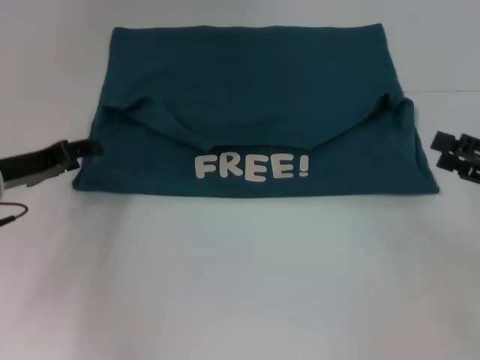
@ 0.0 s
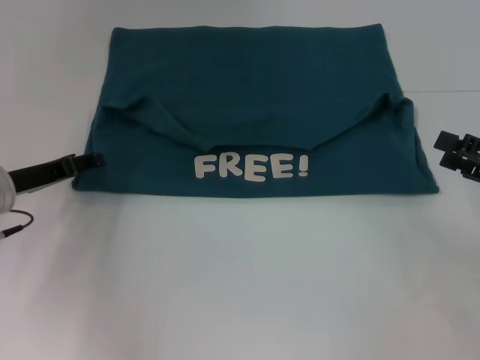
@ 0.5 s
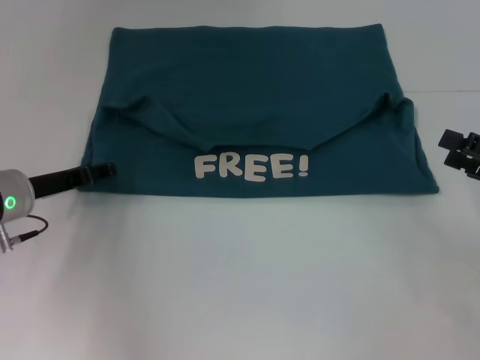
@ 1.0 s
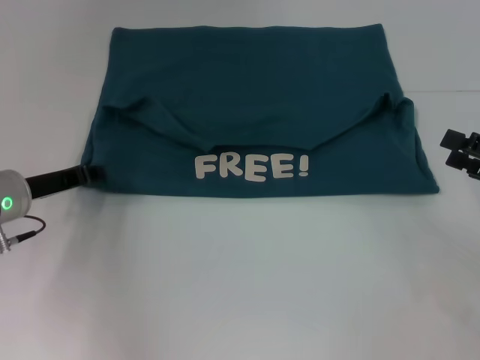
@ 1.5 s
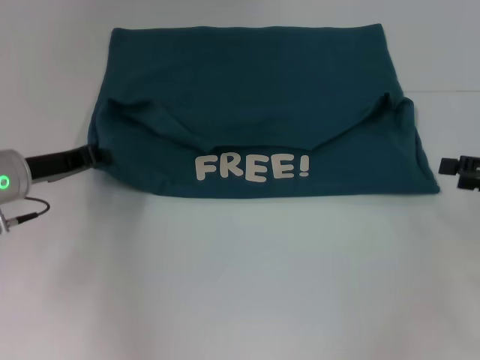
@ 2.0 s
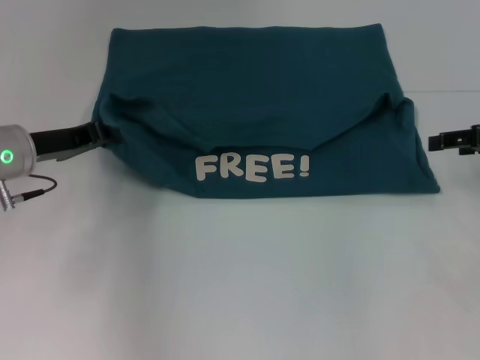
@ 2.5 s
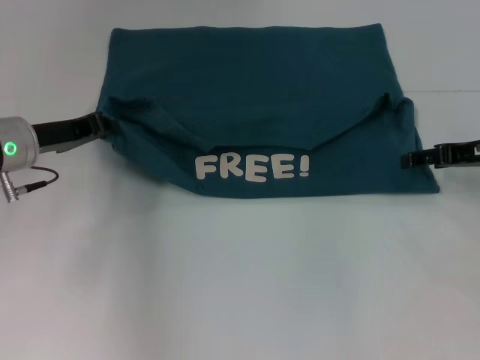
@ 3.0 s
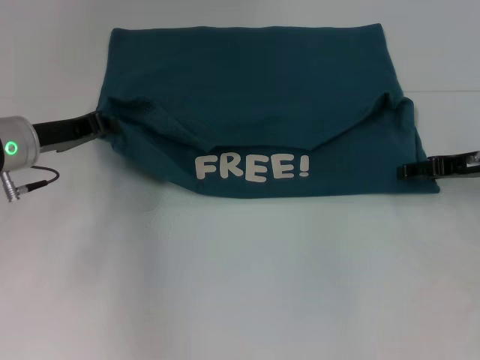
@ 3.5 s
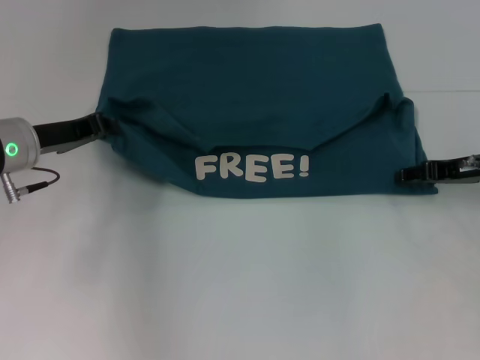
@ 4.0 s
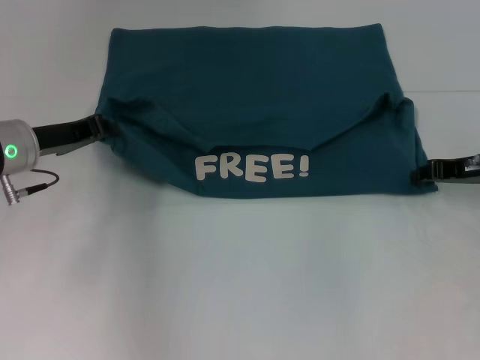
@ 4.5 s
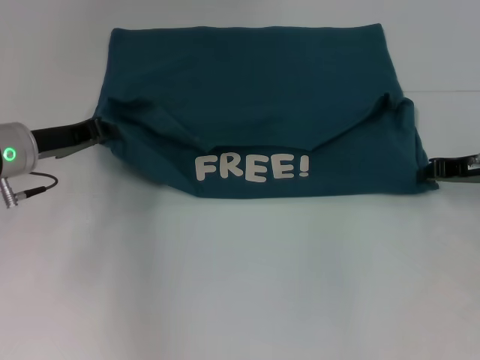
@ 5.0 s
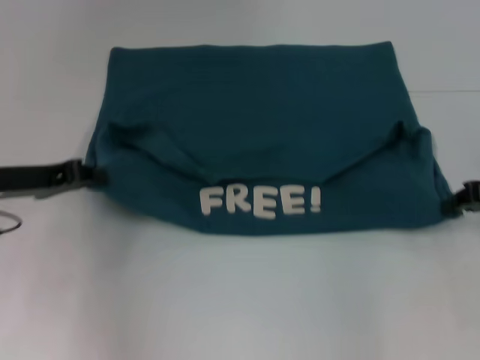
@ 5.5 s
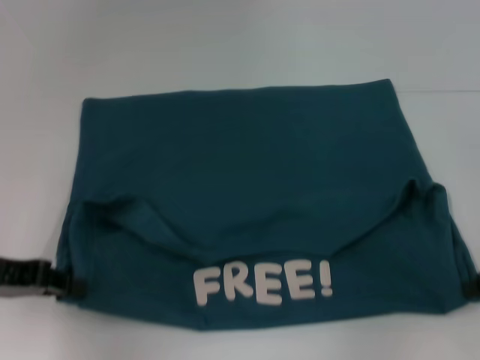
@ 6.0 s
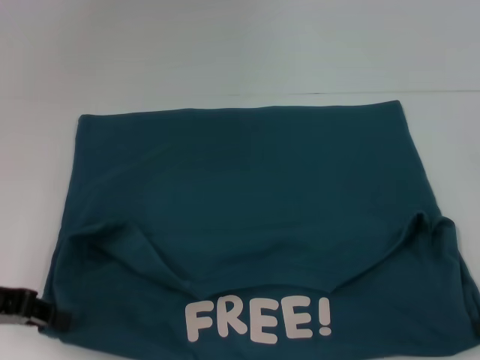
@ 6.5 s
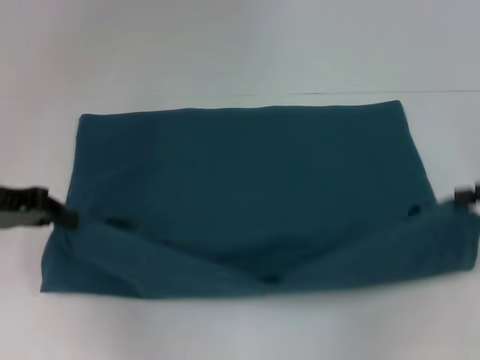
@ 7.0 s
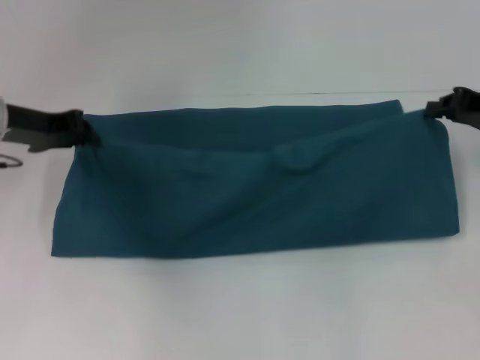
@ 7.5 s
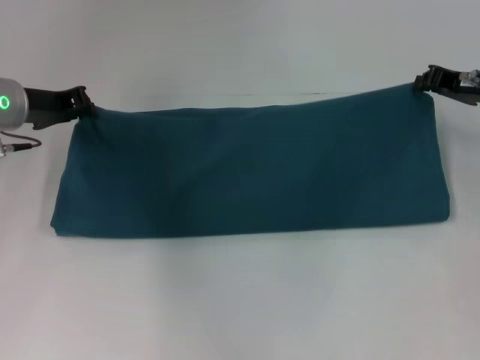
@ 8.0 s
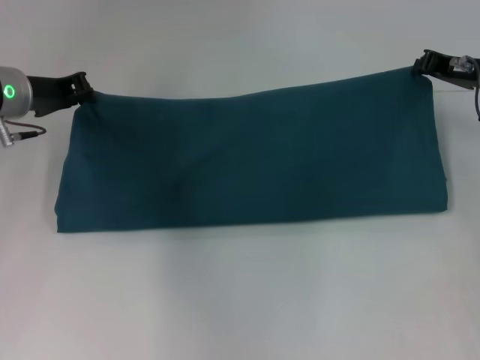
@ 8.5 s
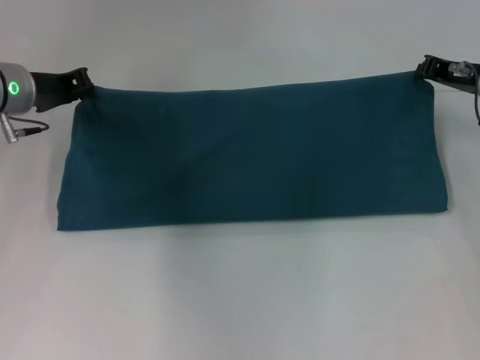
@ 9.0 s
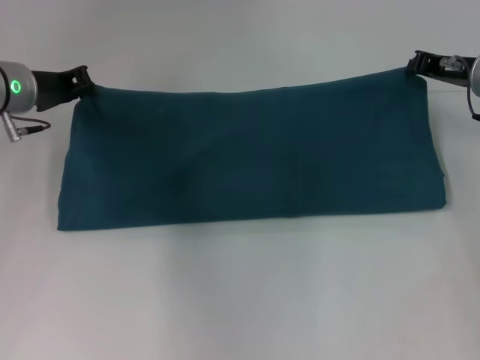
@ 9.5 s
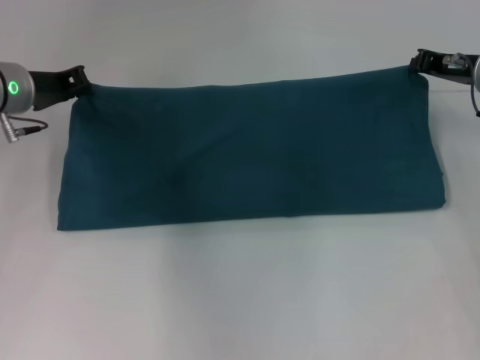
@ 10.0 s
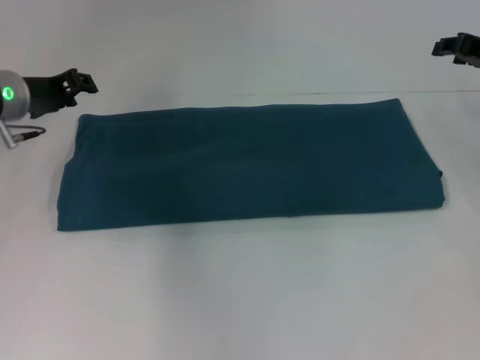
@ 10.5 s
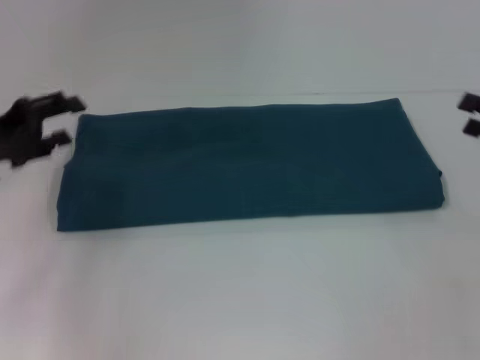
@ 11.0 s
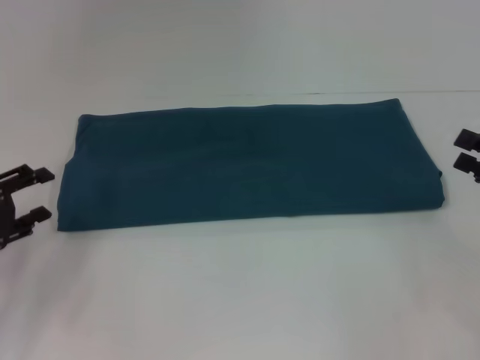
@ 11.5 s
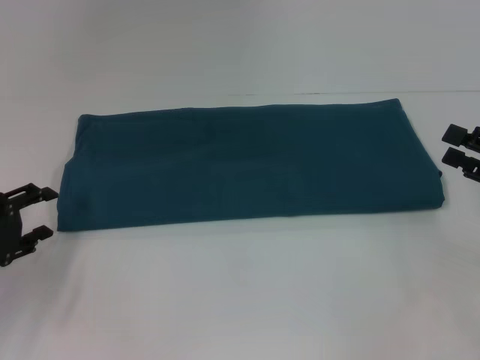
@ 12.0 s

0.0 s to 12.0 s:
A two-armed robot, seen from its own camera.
Step, 0.0 to 6.0 s: Pull the clothes with your left hand.
Step, 0.0 to 6.0 s: Pull the clothes with your right hand.
Step, 6.5 to 10.0 s: Fold the clothes to the right.
0.0 to 2.0 s: The left gripper closes.
2.0 to 4.0 s: The right gripper travels forward and to the left by some 10 cm.
4.0 to 6.0 s: The left gripper heads backward and to the left, covering about 10 cm. Meanwhile the right gripper travels backward and to the right by some 10 cm, and closes its fingers.
6.0 to 8.0 s: The left gripper heads forward, covering about 15 cm, while the right gripper shifts about 15 cm forward and to the left.
8.0 to 10.0 s: There are only small adjustments of the grippers.
10.0 to 12.0 s: The left gripper travels backward, downward and to the left by roughly 20 cm, and opens, while the right gripper travels backward and to the right by approximately 20 cm, and opens up.

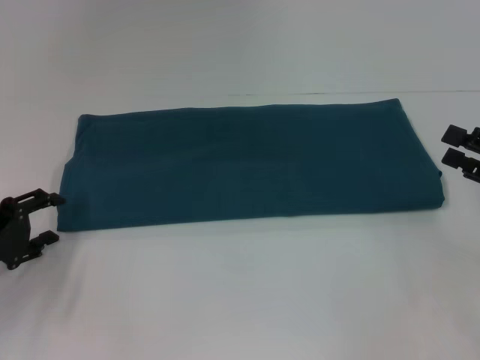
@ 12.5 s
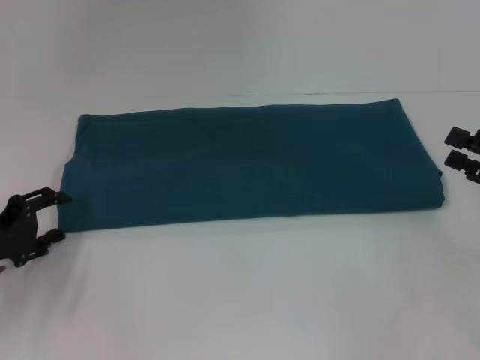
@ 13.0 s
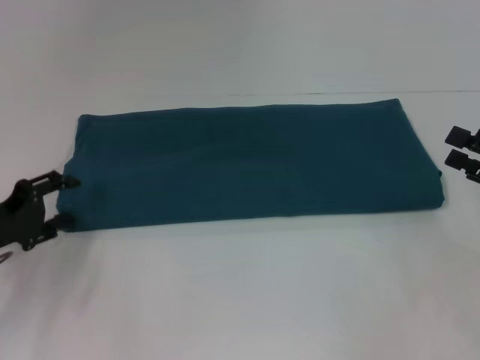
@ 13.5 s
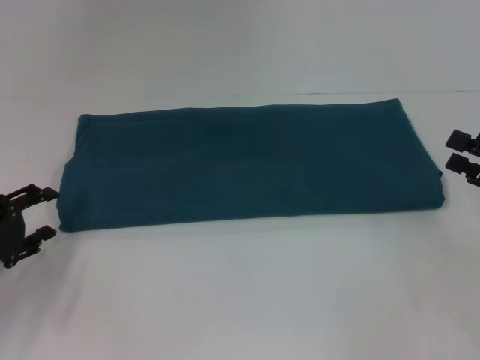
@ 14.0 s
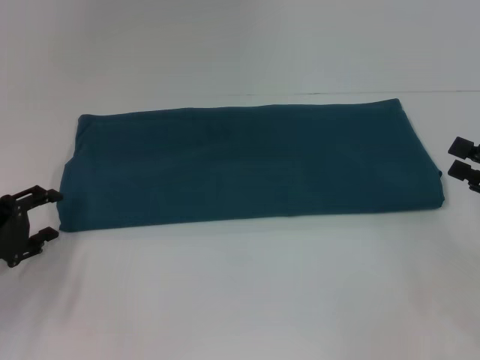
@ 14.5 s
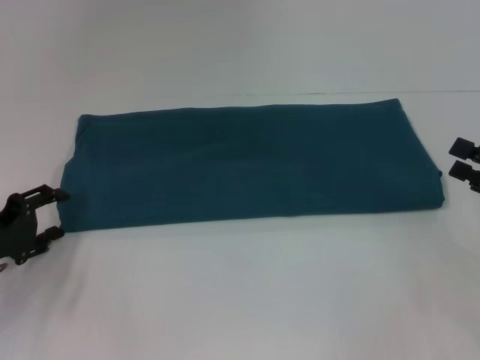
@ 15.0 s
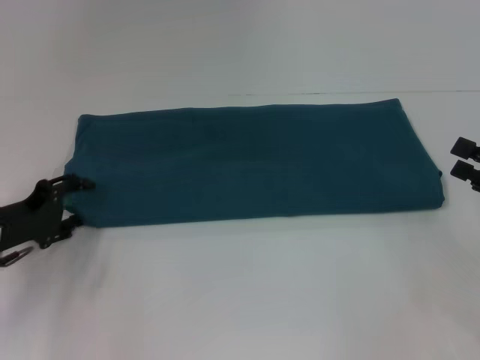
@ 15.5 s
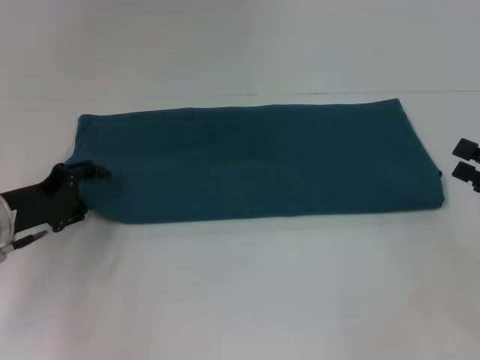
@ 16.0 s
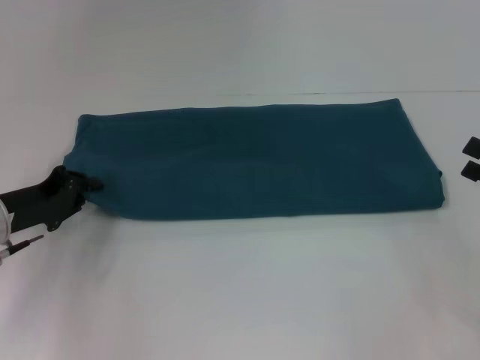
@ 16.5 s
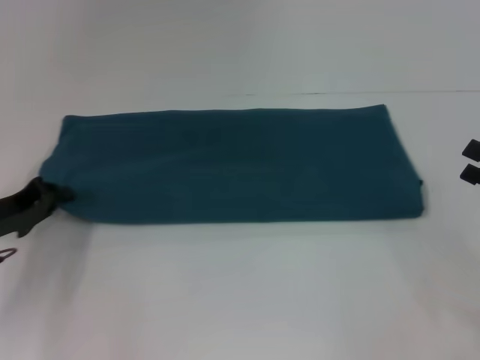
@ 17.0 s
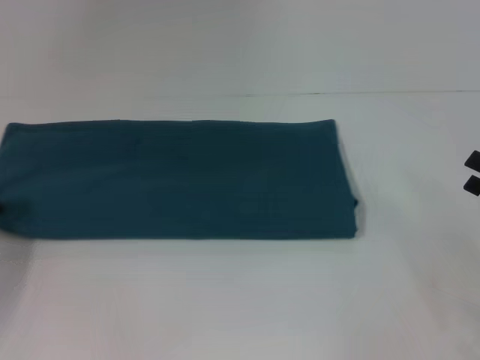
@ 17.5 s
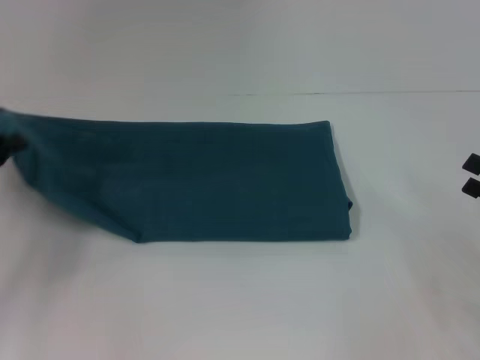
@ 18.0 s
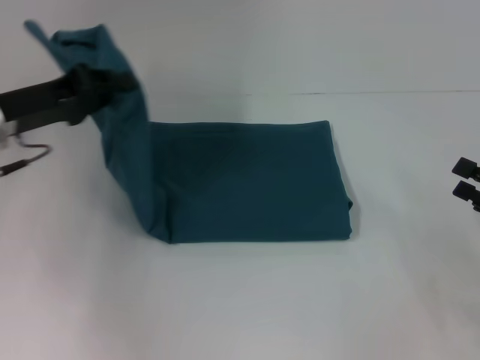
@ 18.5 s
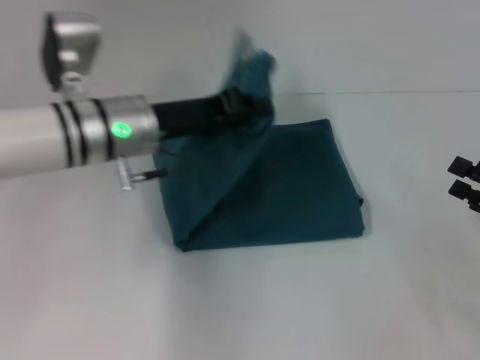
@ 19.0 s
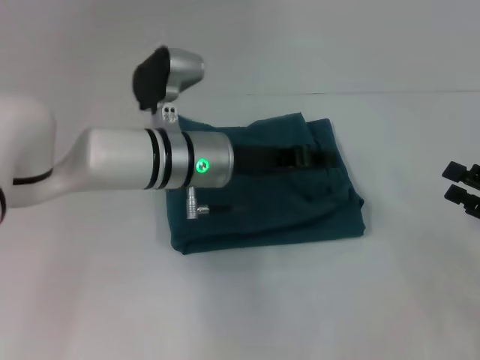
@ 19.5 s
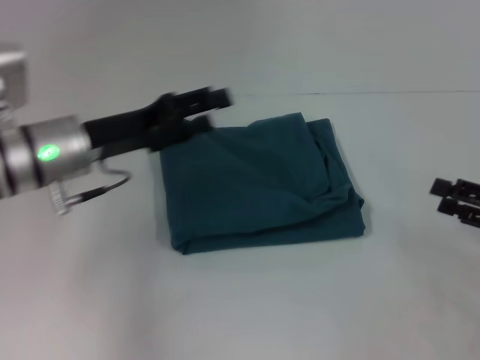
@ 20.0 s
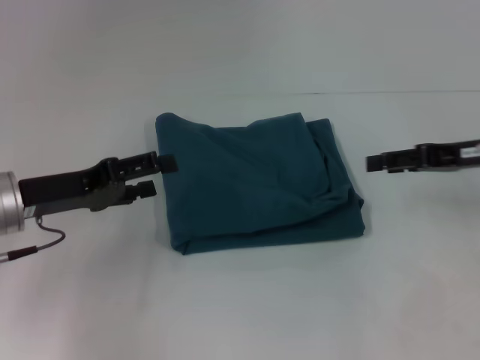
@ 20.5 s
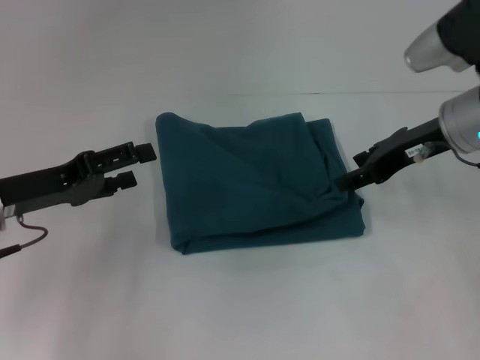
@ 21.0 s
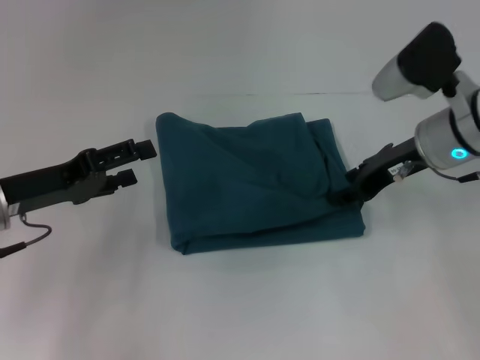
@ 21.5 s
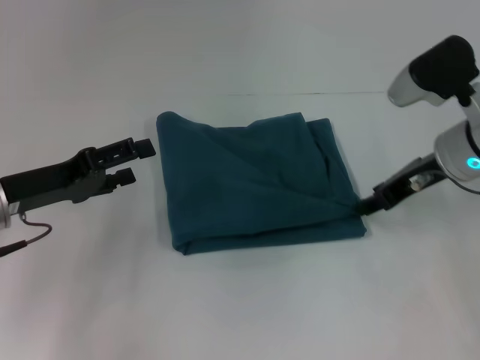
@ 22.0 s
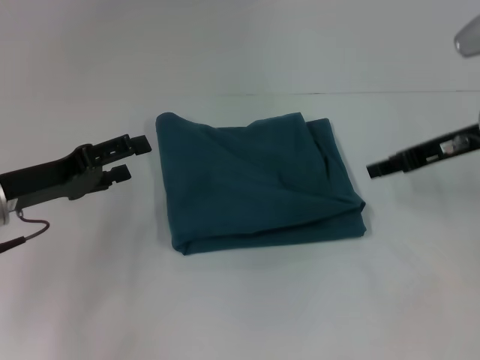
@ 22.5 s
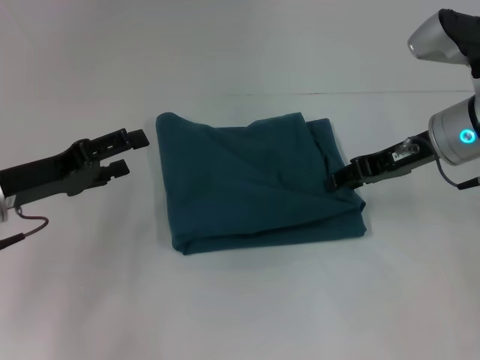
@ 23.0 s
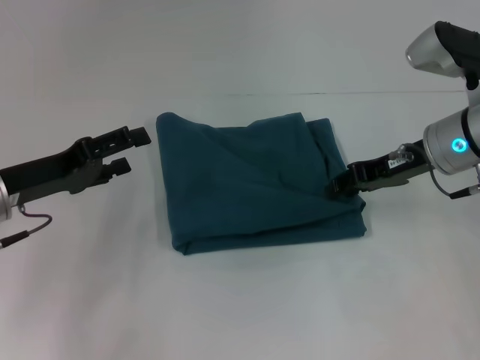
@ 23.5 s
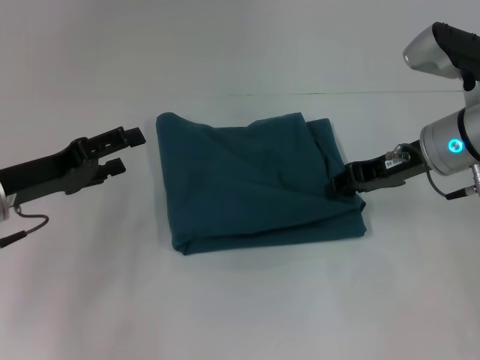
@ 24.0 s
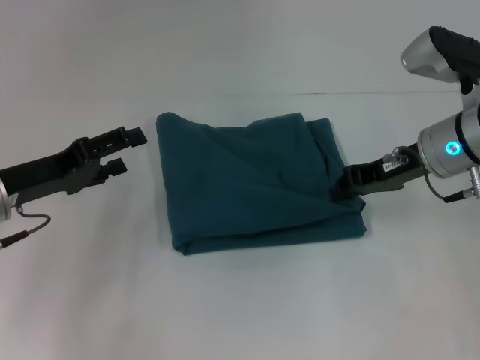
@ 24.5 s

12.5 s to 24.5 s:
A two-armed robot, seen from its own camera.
Step, 12.5 to 19.0 s: Fold the clothes to the left.
12.5 to 14.5 s: There are only small adjustments of the grippers.
14.5 to 16.5 s: The left gripper heads forward, covering about 5 cm, and closes up.
16.5 to 18.5 s: The left gripper moves upward, approximately 10 cm.
18.5 to 20.5 s: The left gripper reaches roughly 20 cm to the right, then returns, and opens up. Meanwhile the right gripper moves forward, to the left and upward, approximately 15 cm.
22.5 to 24.5 s: The right gripper shifts by roughly 5 cm.

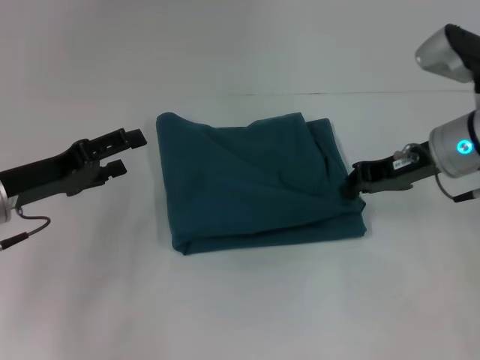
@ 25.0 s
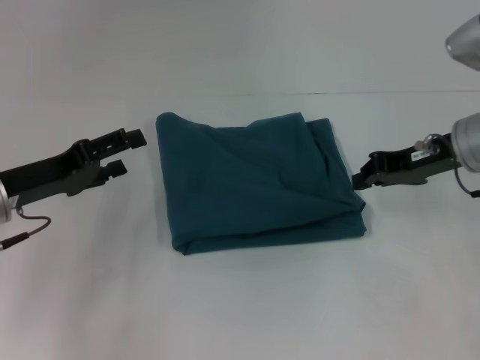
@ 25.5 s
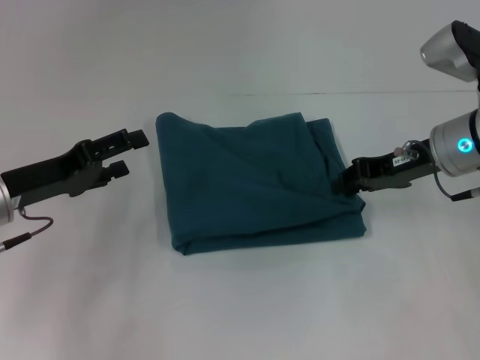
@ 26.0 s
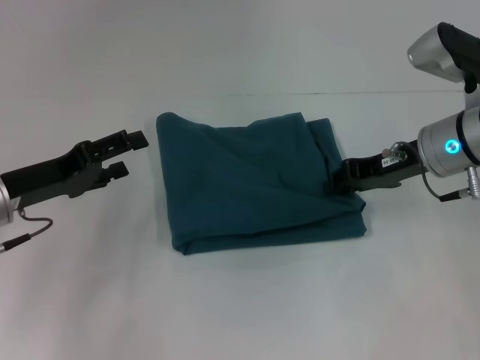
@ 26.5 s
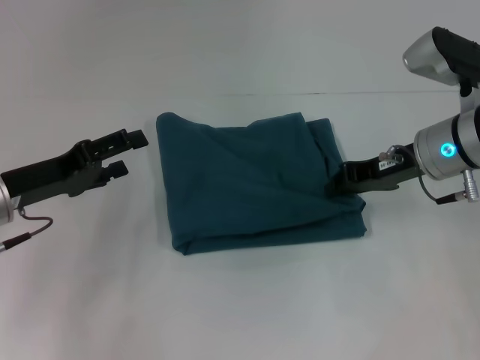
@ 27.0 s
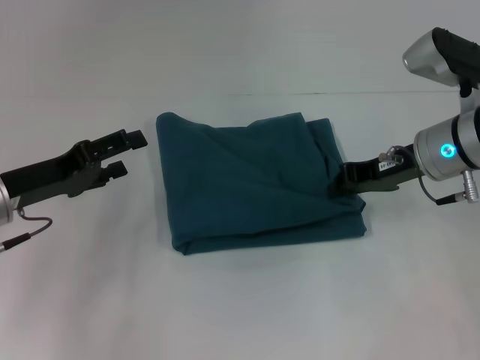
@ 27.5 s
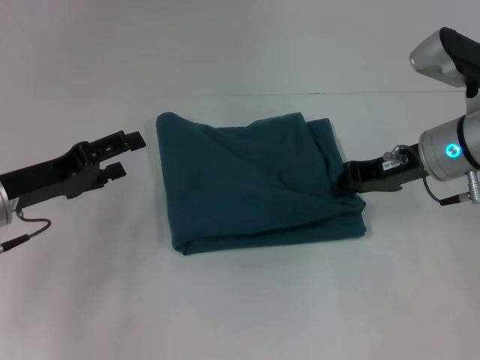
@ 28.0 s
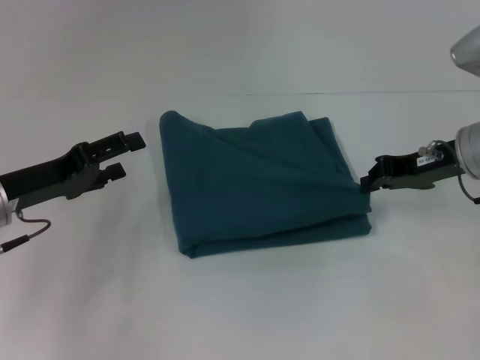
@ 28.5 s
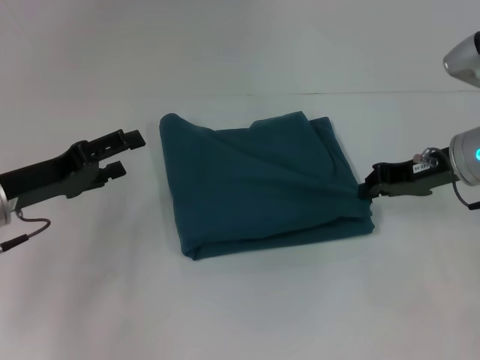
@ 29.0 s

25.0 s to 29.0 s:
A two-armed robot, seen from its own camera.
25.0 to 29.0 s: The grippers make only small movements.
